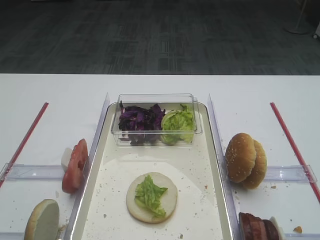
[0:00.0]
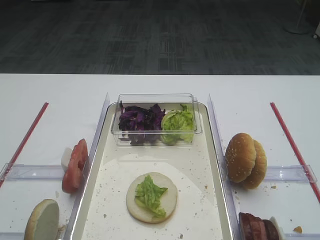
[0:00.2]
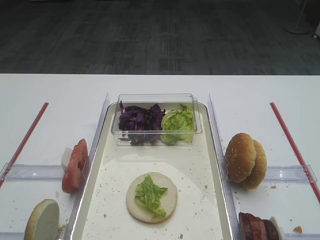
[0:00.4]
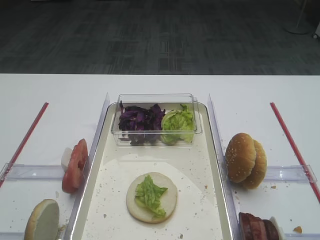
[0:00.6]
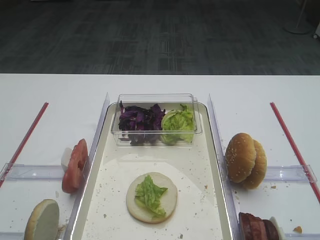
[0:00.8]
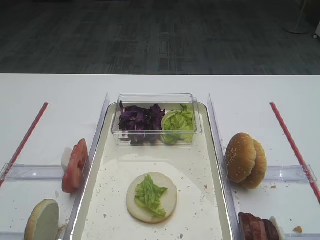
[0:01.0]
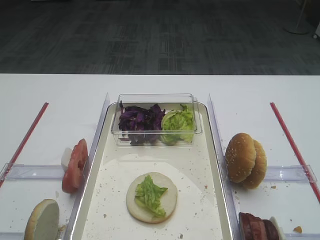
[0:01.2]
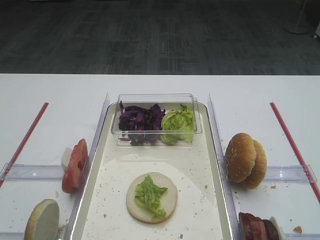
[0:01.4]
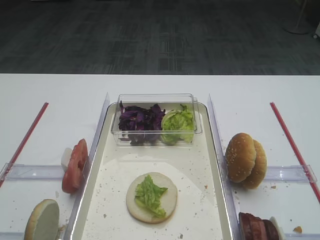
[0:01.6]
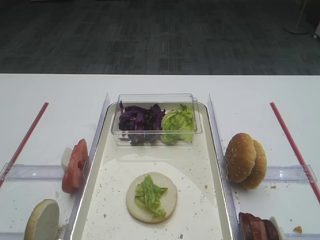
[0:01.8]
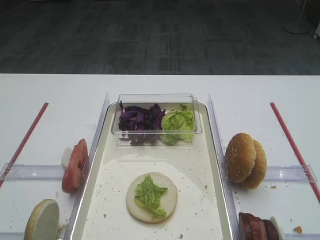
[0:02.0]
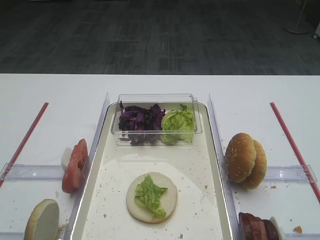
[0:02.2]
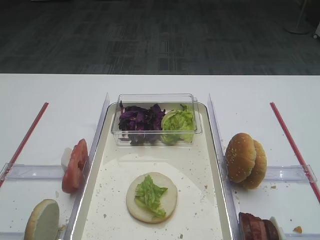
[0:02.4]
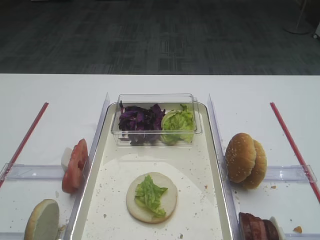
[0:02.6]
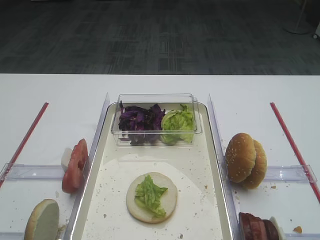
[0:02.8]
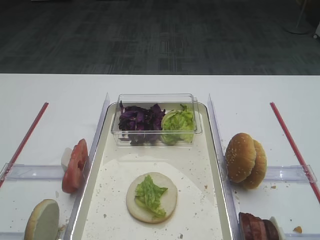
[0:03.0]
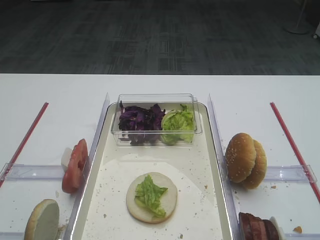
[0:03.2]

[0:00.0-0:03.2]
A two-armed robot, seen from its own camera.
0:00.0 to 0:03.2: Both grippers stay about where they are.

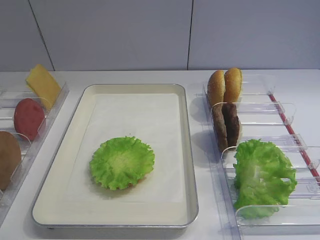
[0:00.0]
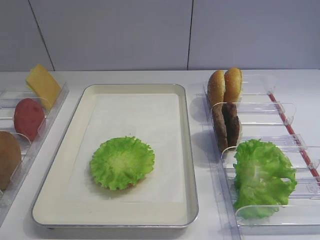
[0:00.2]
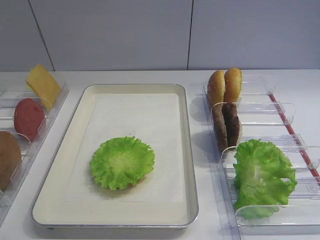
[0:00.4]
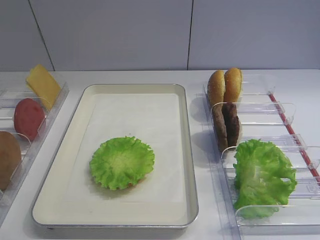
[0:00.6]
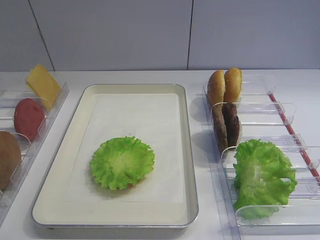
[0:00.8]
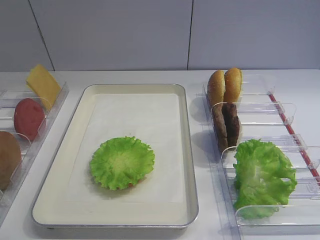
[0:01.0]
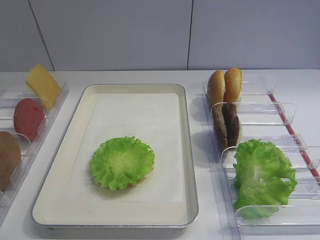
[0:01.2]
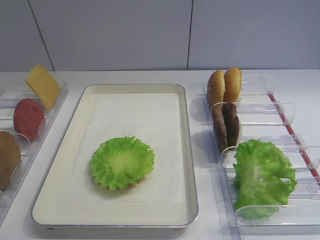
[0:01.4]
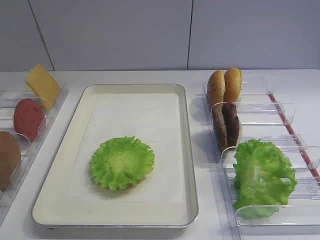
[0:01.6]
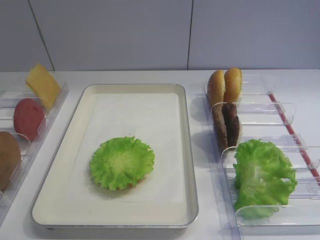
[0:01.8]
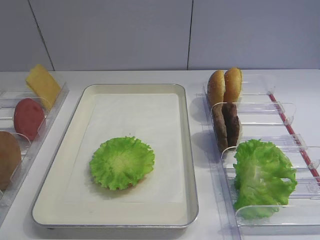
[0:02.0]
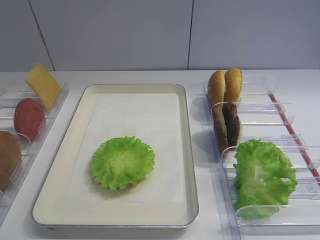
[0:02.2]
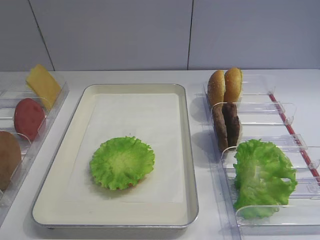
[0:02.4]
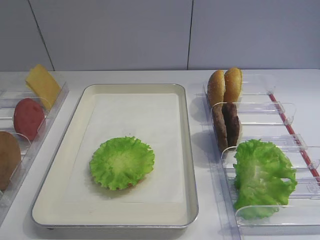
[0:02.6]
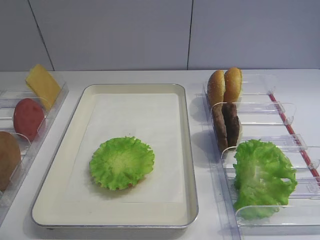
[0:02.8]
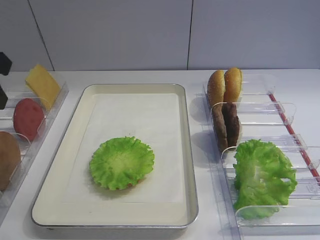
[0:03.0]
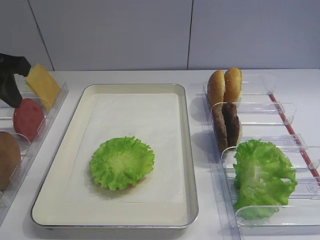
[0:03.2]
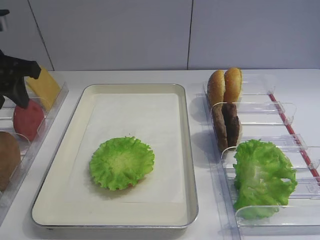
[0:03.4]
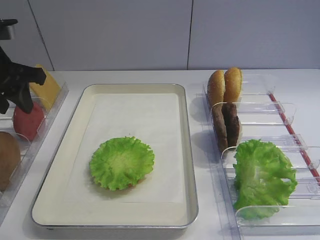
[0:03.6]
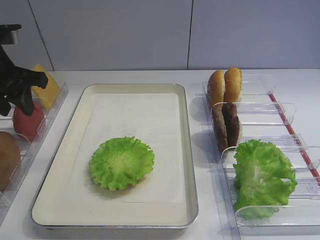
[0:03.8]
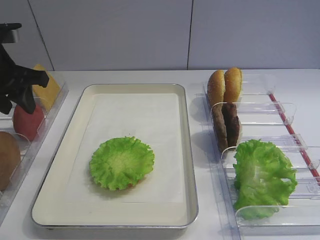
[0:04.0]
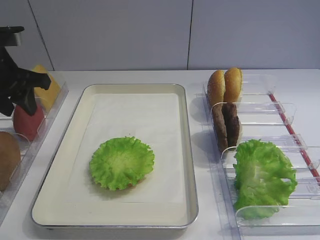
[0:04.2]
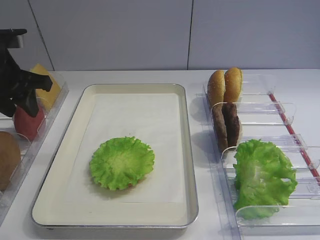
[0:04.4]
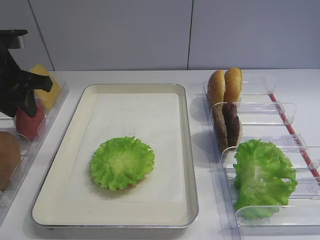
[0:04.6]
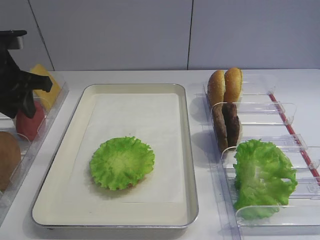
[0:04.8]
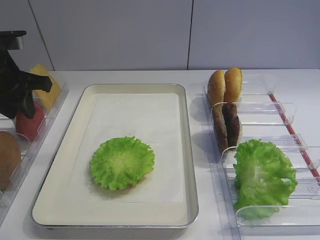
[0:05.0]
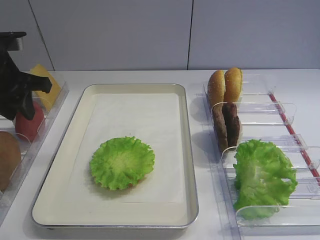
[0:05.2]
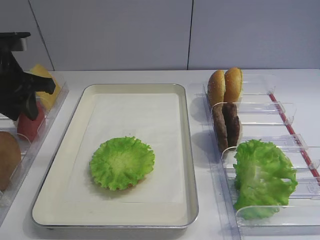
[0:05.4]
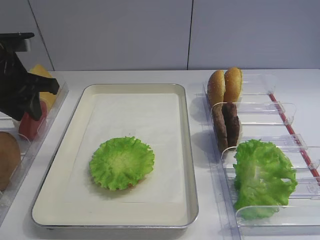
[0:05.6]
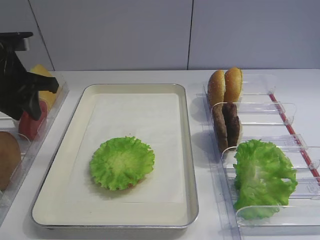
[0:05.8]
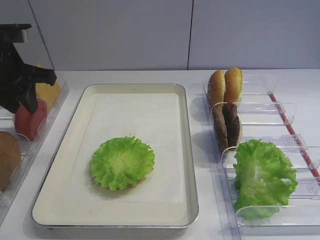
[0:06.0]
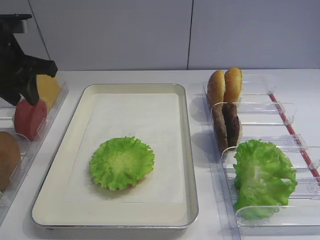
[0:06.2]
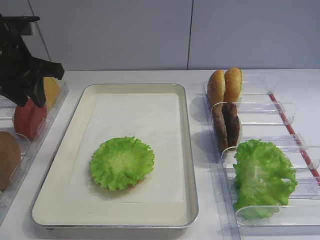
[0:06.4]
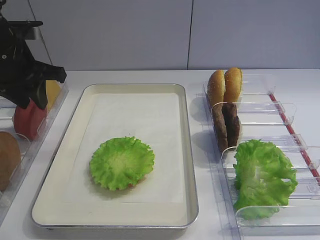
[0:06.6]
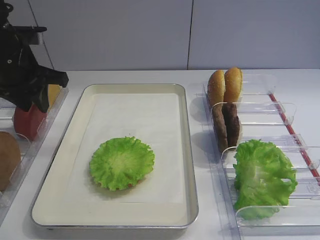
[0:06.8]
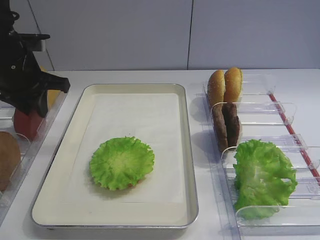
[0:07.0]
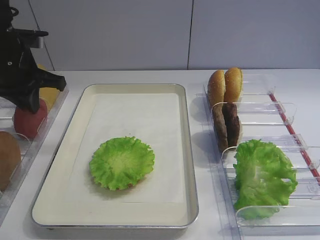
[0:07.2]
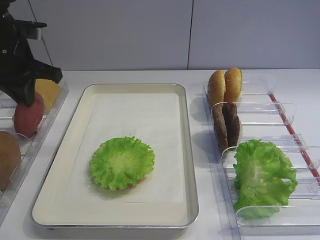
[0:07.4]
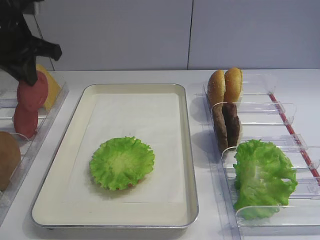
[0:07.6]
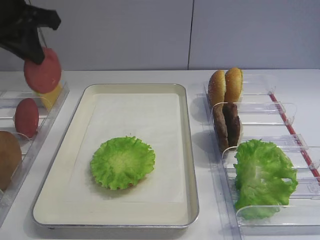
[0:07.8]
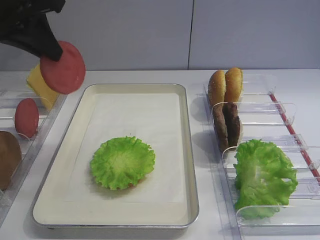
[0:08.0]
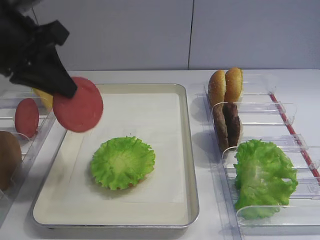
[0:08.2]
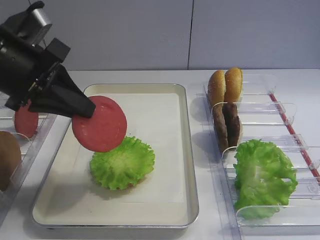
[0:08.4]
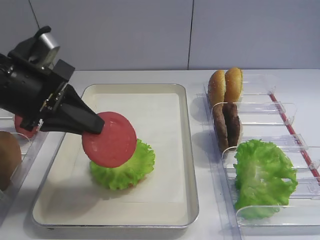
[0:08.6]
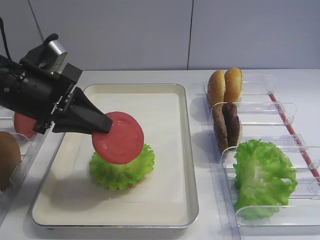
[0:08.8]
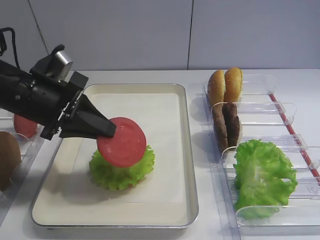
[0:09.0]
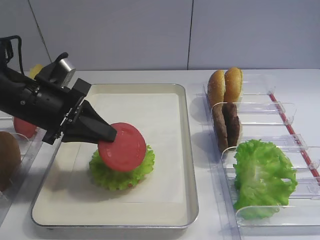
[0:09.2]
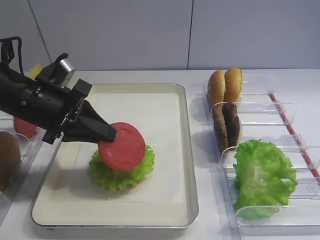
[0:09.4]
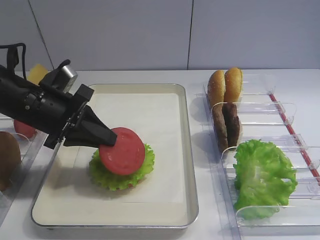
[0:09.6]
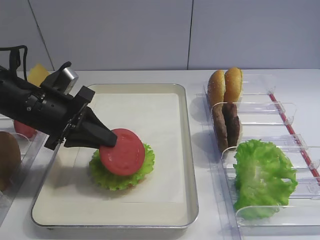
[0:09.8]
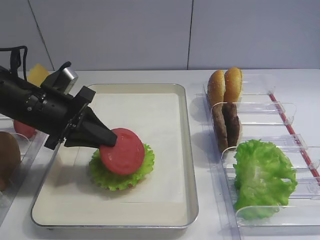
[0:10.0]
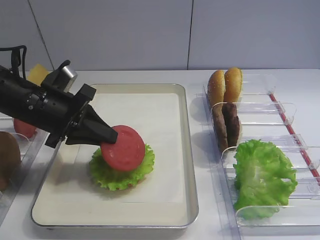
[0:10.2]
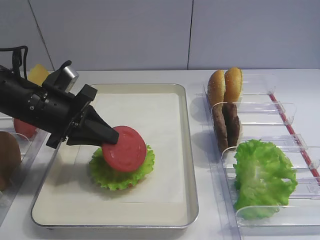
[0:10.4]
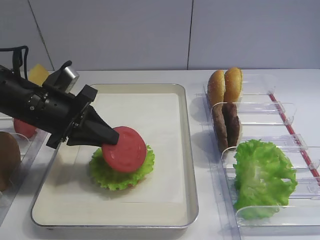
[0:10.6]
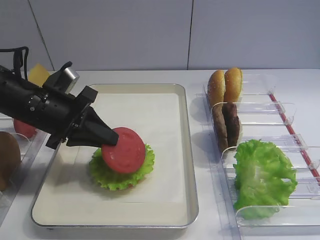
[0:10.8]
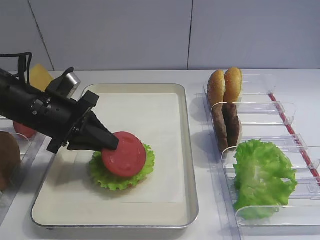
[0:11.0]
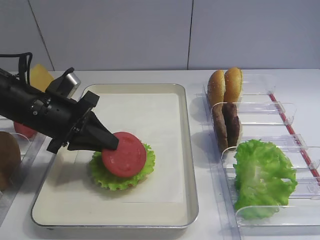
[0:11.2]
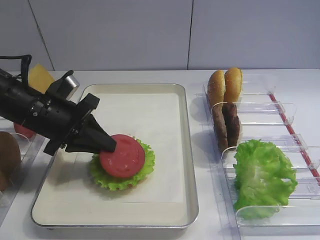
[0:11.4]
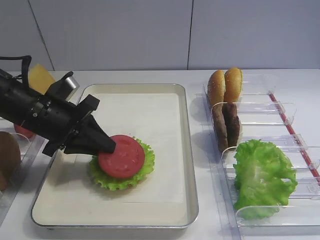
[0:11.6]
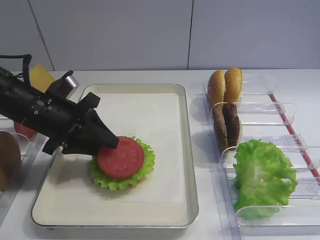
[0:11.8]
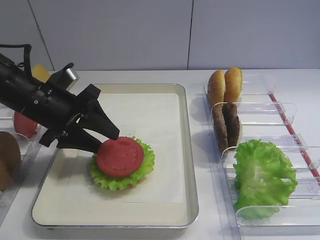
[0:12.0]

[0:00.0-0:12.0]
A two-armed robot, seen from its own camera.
Step, 0:00.0 to 0:07.8: Pick up the tomato slice with the left gripper.
0:03.0 to 0:04.4: The left gripper travels forward and downward by roughly 10 cm.
0:04.4 to 0:06.0: The grippers stay close to where they were, moving slightly.
0:06.0 to 0:07.6: The left gripper moves some 5 cm, and closes its fingers.
0:07.6 to 0:09.0: The left gripper is displaced downward, backward and to the right by approximately 15 cm.
0:09.0 to 0:10.4: The grippers make only small movements.
0:10.4 to 0:12.0: The left gripper opens.

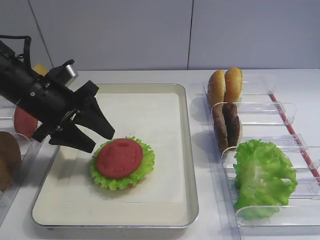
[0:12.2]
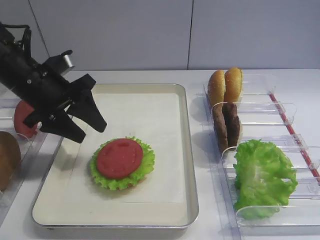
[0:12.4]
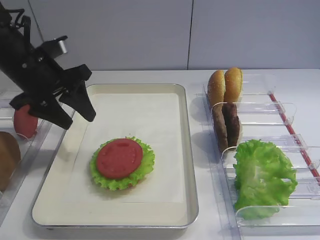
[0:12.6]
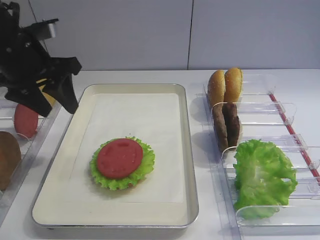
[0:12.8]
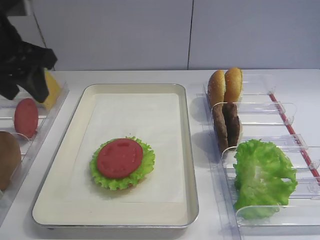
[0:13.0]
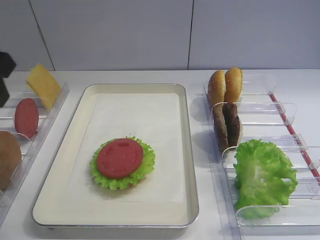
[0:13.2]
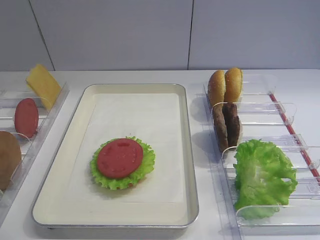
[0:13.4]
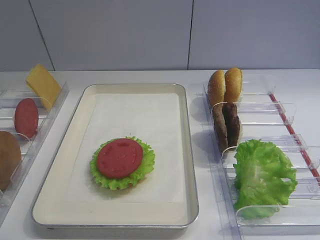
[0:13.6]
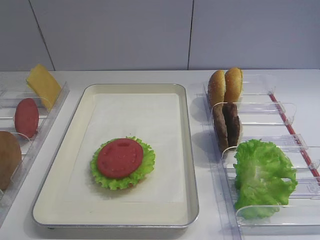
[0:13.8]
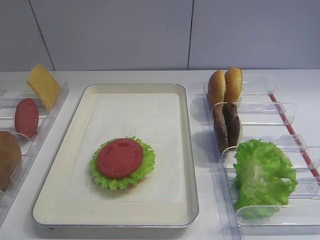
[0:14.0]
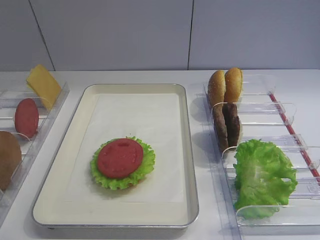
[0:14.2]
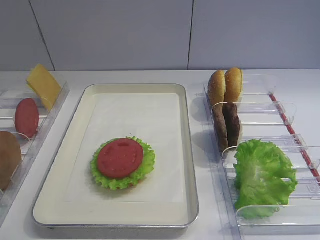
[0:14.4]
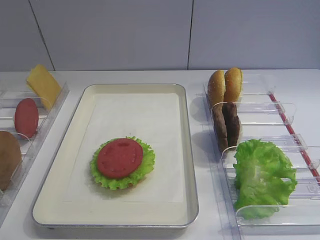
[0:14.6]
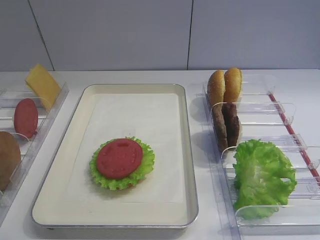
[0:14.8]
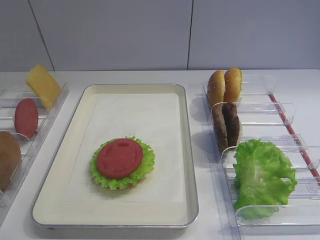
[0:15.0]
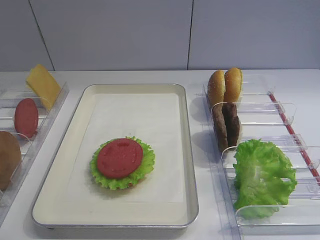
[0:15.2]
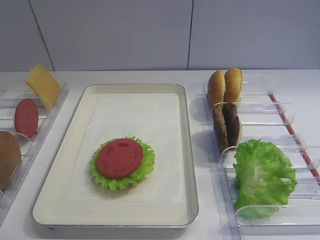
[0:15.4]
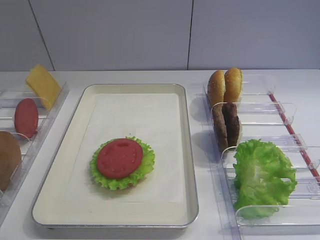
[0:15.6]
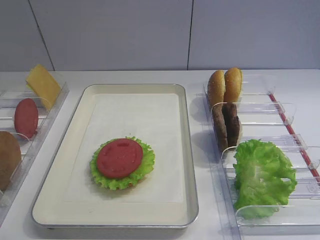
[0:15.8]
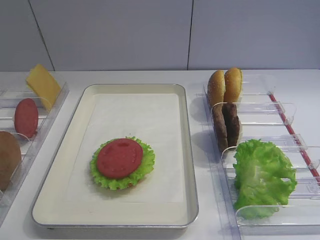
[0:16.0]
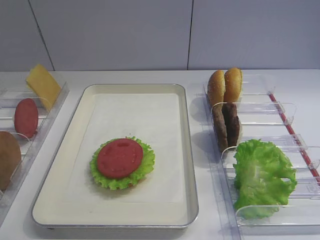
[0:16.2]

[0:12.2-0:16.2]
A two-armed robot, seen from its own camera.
0:12.2 to 0:13.6: The left gripper travels backward and upward by roughly 25 cm.
0:14.8 to 0:16.2: Neither gripper changes place.

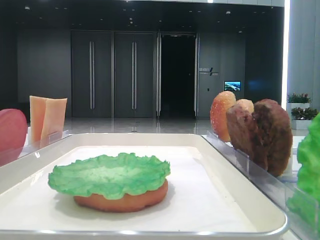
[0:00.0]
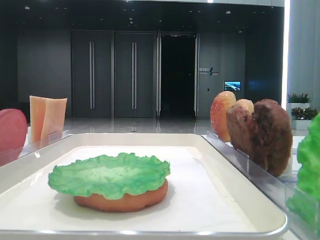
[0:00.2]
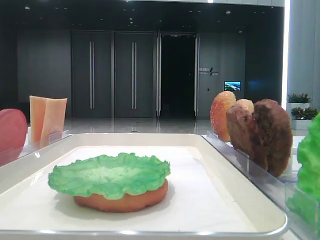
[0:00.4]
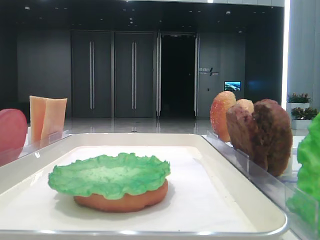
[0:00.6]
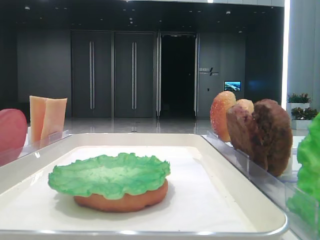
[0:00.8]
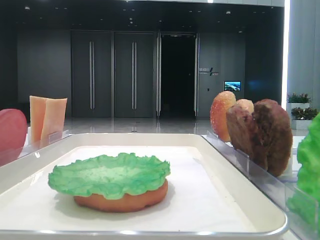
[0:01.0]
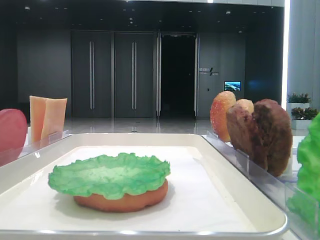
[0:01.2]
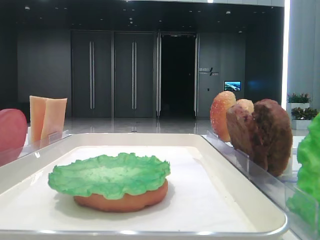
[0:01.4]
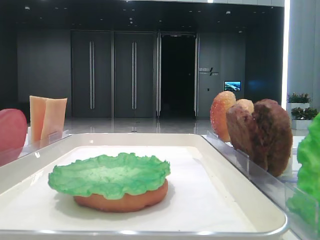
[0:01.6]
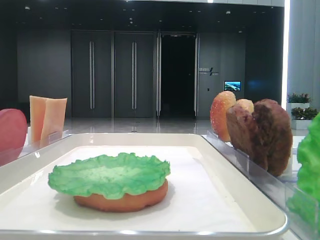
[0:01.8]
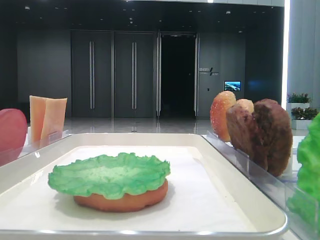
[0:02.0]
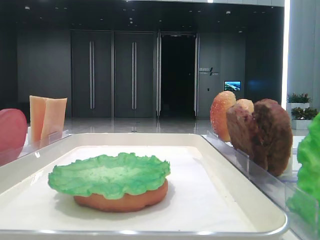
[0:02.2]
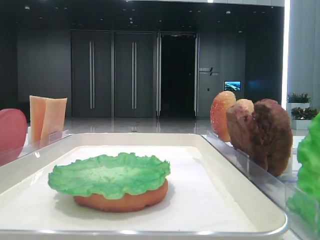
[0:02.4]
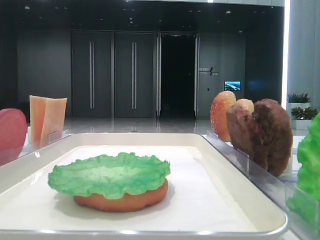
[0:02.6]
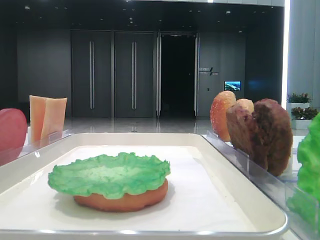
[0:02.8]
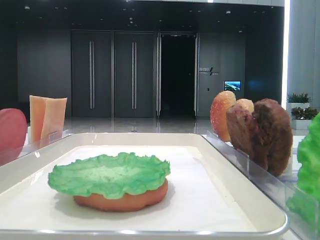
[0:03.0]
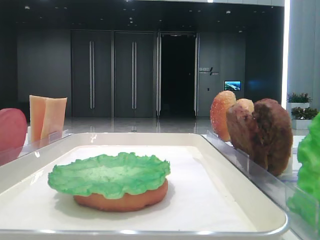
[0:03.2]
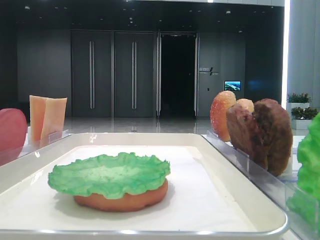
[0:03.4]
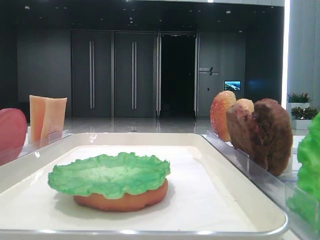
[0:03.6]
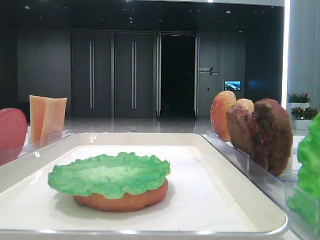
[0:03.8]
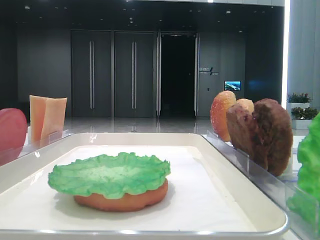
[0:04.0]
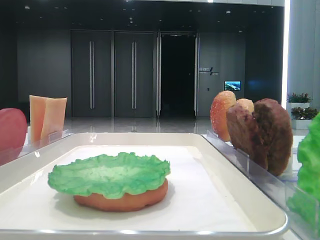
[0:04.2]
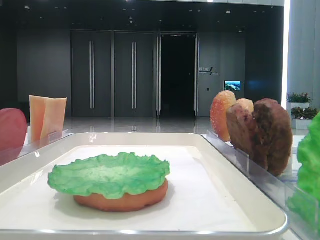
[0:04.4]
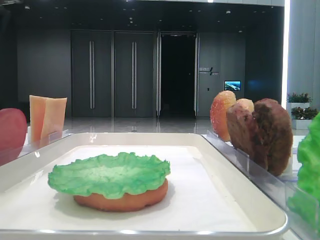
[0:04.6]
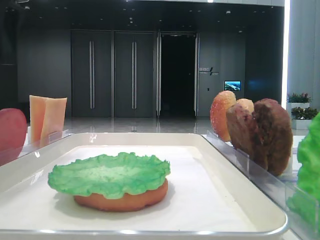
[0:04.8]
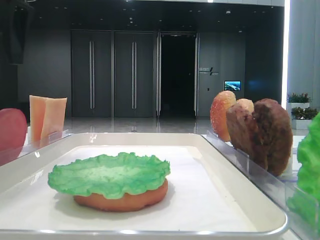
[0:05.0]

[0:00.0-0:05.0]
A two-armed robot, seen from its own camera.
0:03.4 to 0:05.0: The left gripper shifts some 10 cm to the right.
